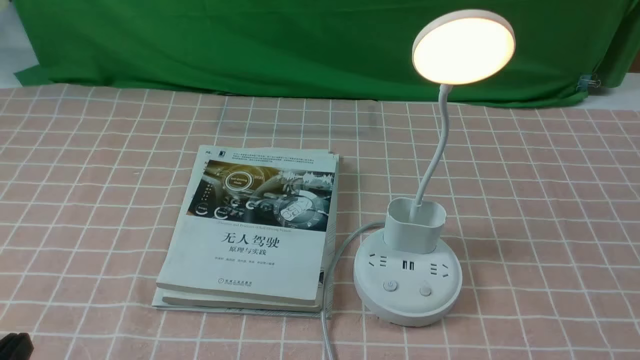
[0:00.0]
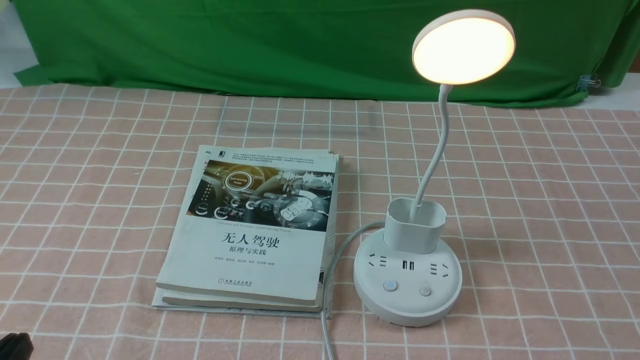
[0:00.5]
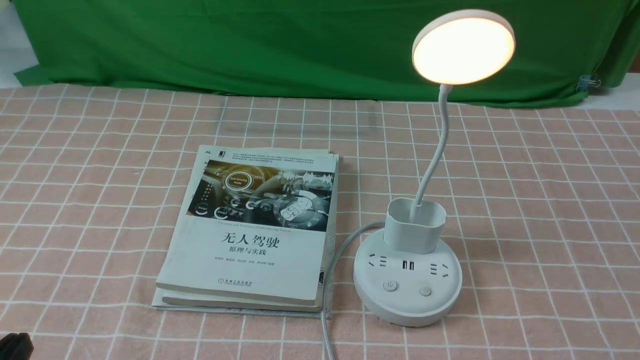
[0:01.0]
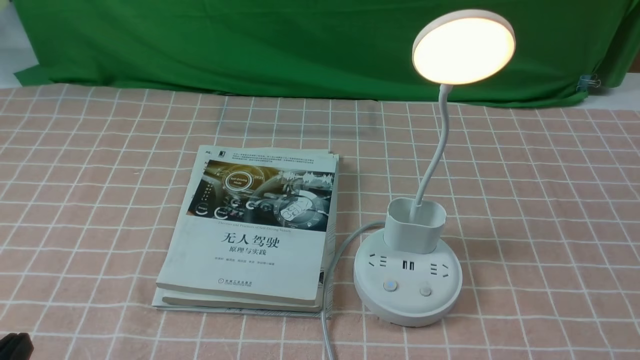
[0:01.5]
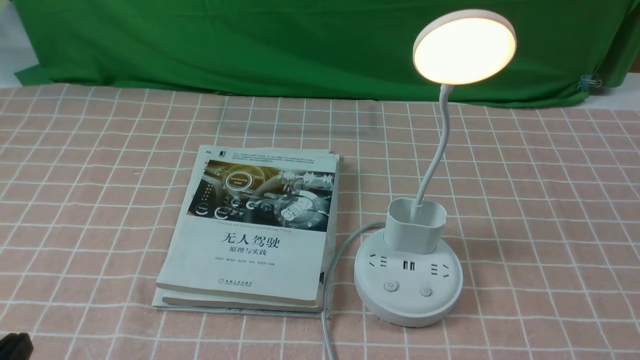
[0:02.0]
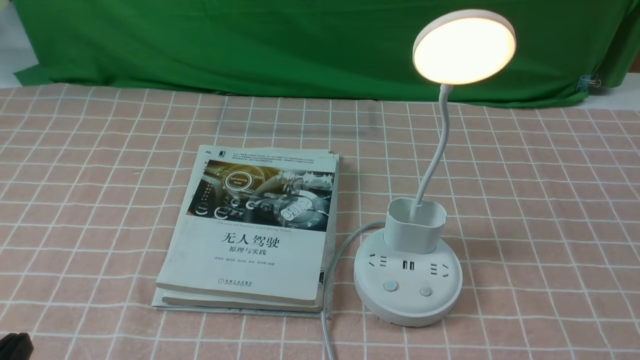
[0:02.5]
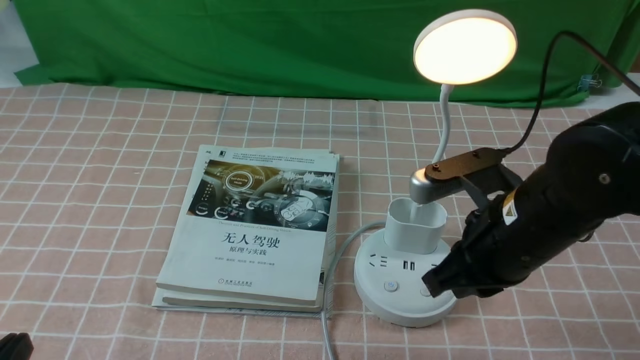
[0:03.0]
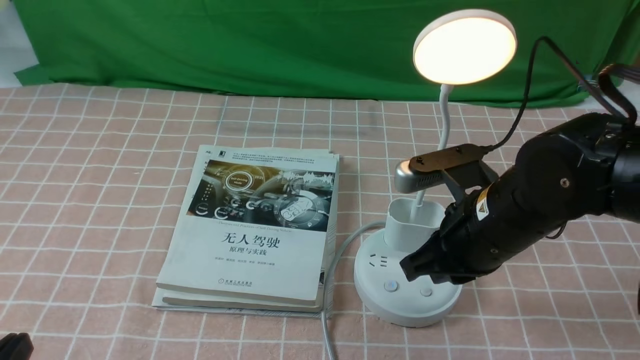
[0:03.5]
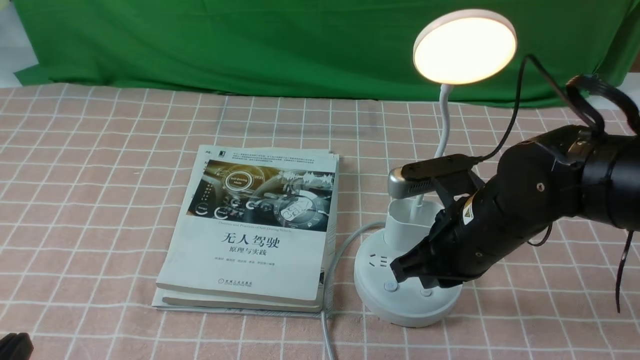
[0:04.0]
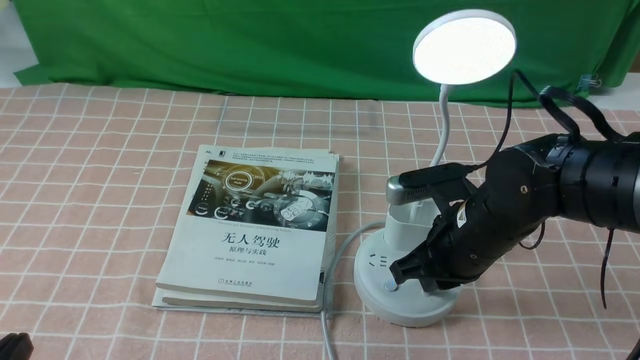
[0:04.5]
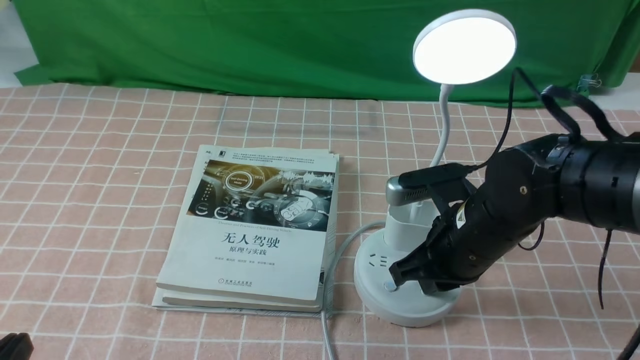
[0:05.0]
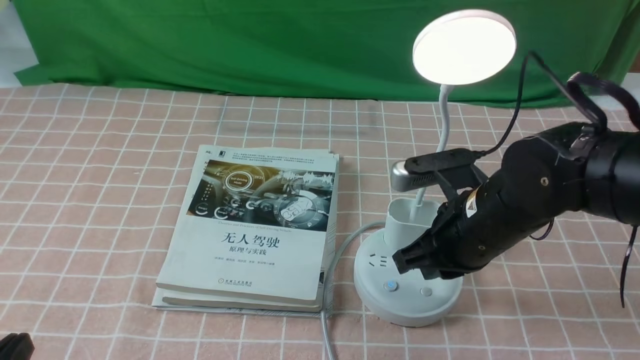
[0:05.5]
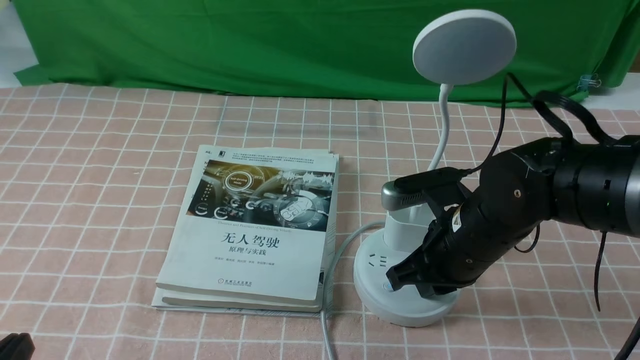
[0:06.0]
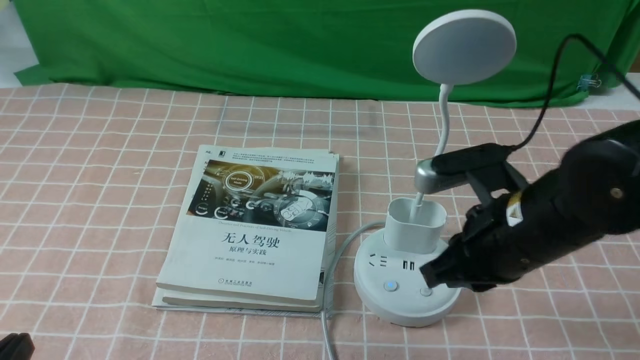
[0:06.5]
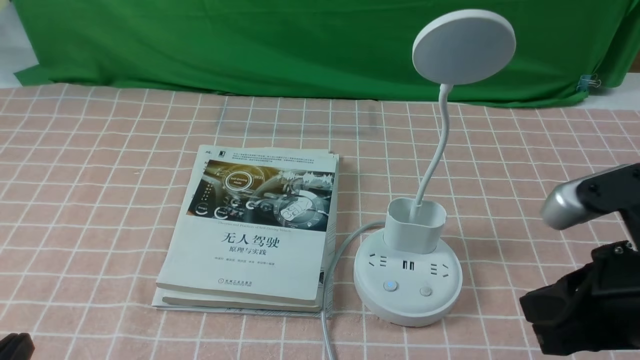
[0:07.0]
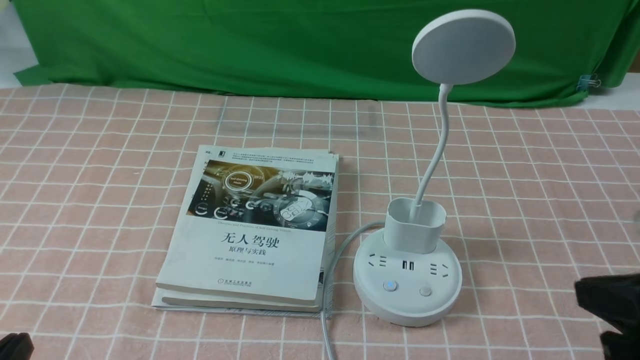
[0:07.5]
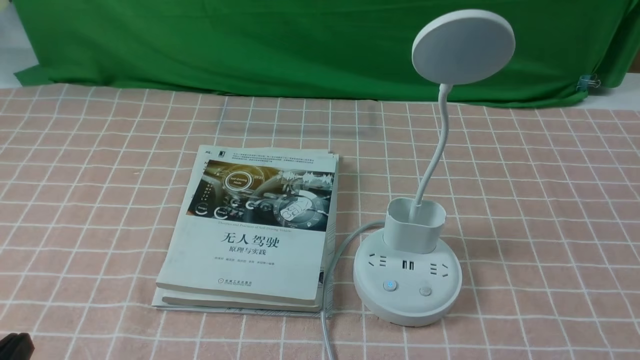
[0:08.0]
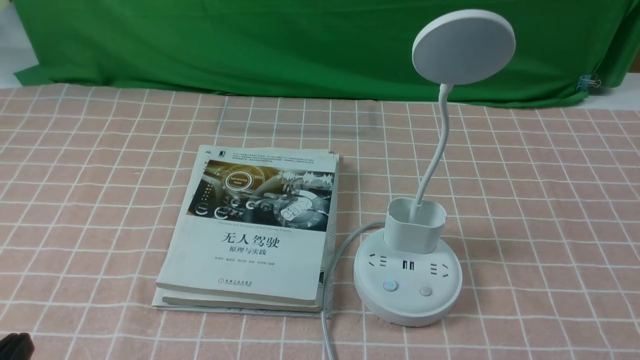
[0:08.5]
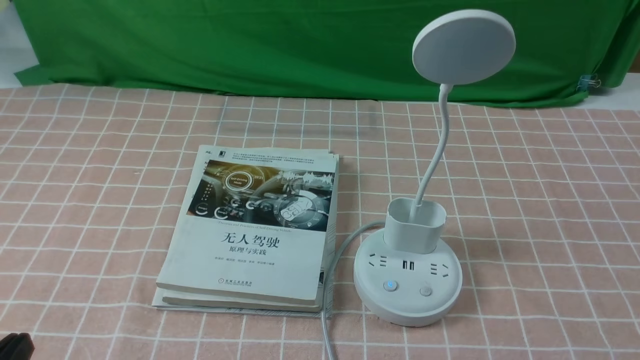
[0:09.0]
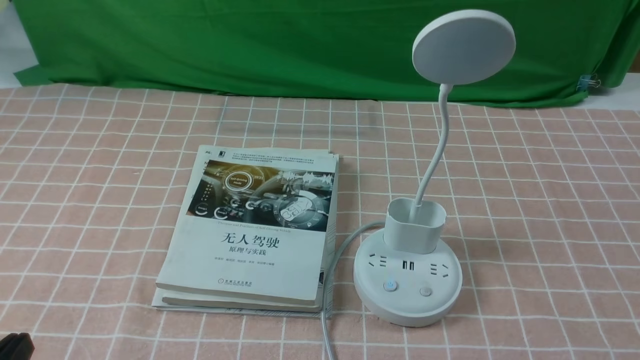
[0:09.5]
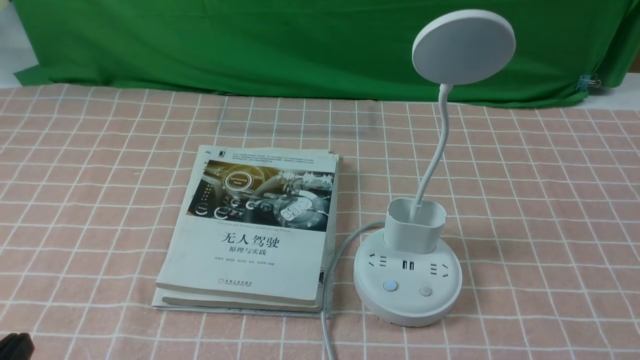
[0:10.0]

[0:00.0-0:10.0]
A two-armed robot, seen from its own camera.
Task of the whole recording: turn off the table lamp on the pink coffee tablecloth by hand.
Step, 0:00.0 to 0:06.0: use the right arm to press the button switch on the lamp holder.
0:02.0 to 0:04.0: The right gripper is displaced forward and to the left by some 30 cm, and closes up.
0:04.0 to 0:06.0: There are only small adjustments of the grippers.
0:06.0 to 0:08.0: The right gripper goes roughly 30 cm backward and to the right.

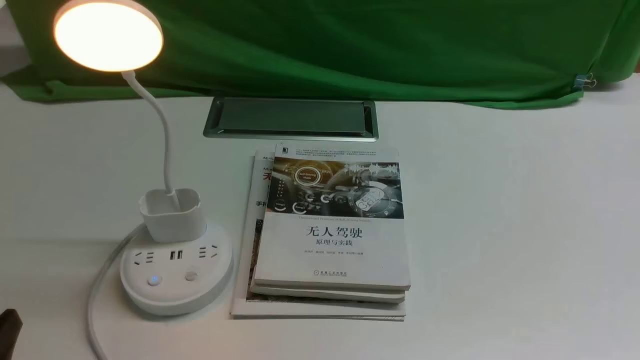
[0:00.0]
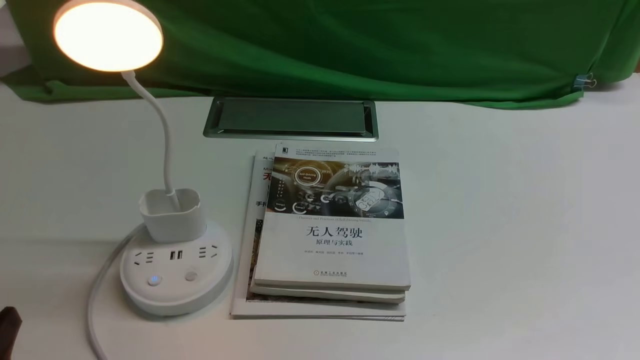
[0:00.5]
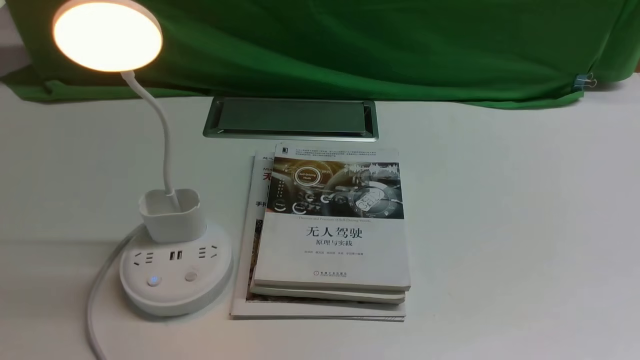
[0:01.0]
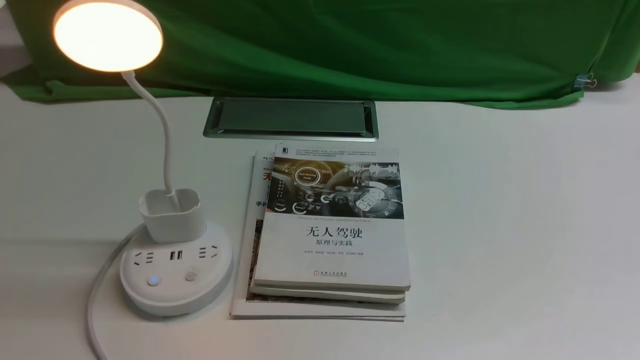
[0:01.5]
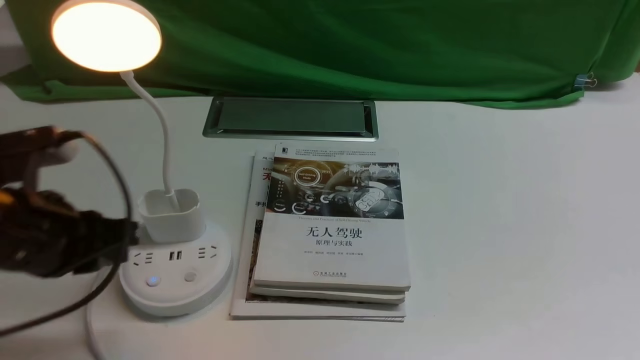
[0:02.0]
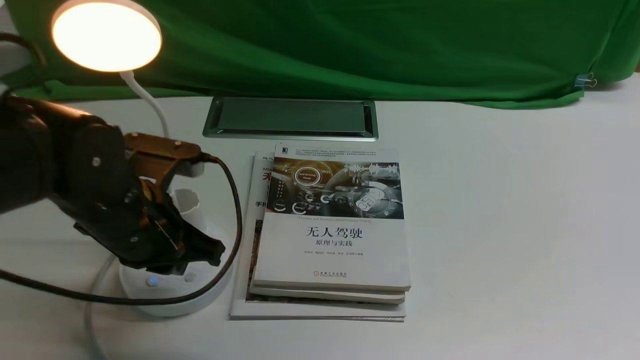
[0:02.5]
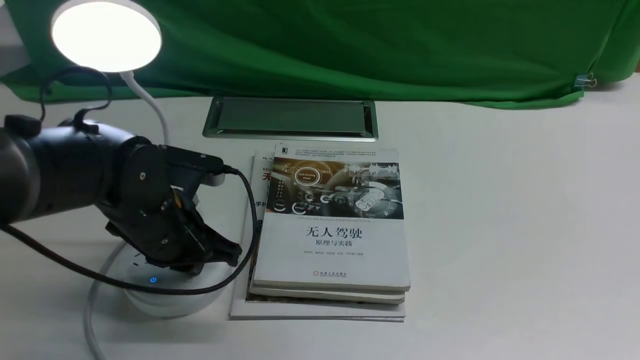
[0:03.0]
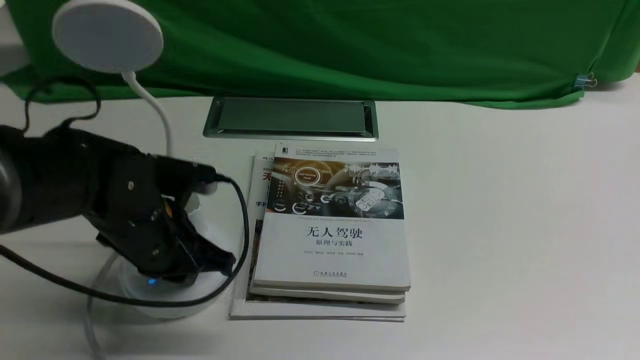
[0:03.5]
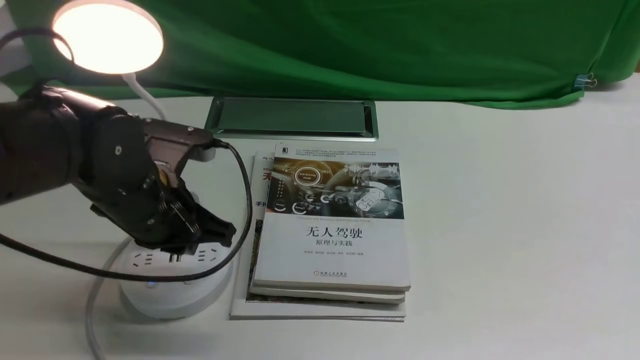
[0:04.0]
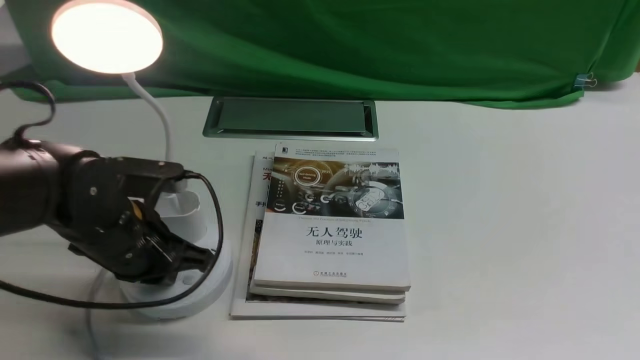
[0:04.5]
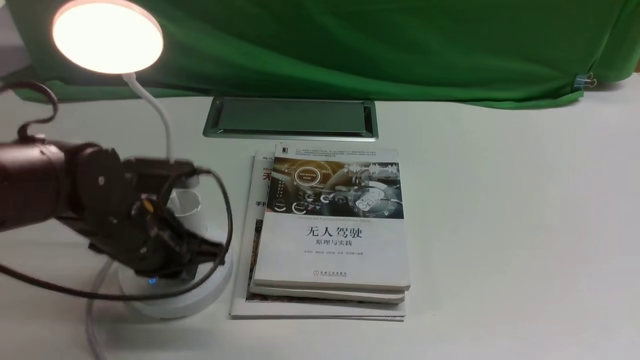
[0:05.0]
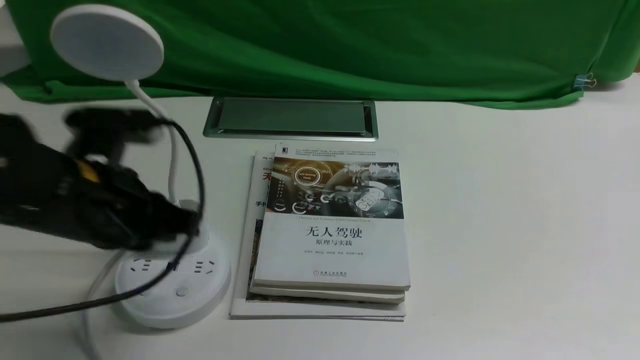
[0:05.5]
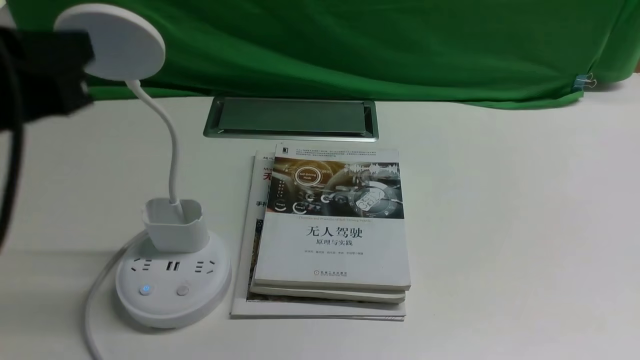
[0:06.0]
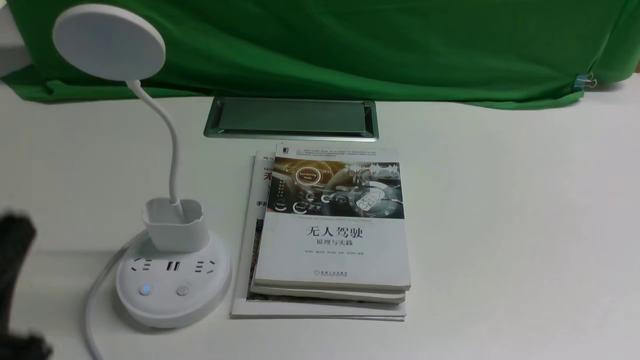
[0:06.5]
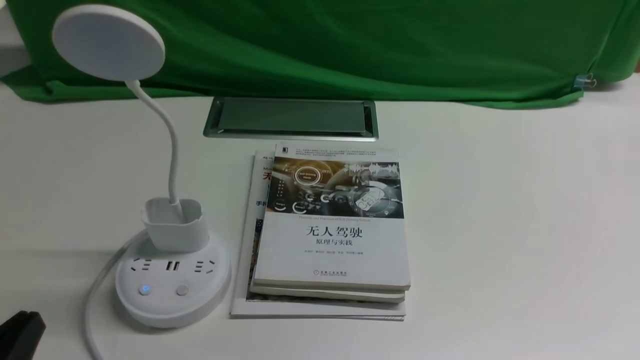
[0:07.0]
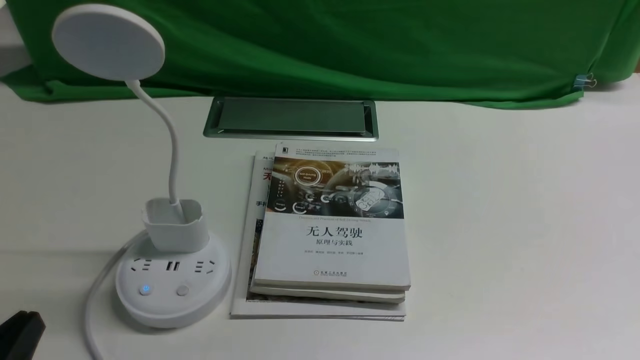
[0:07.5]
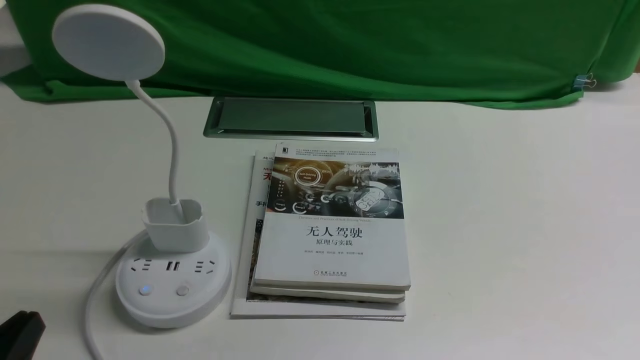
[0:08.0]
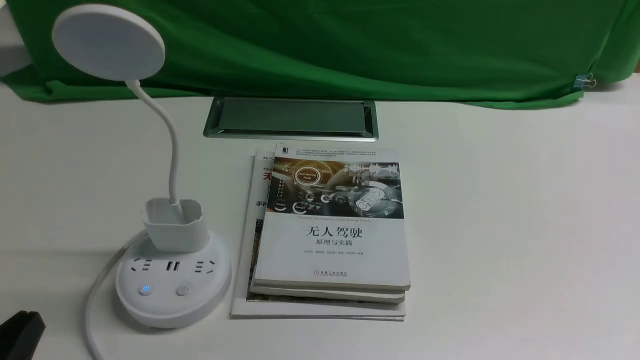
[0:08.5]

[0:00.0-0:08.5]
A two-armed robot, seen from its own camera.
Task of the whole recording: turn off the desk lamp on the white desktop by hand.
Step, 0:00.0 to 0:05.0: use the left arm to press the button switch on the lamp holder.
0:02.0 to 0:04.0: The left gripper is displaced forward, to the right and downward by approximately 15 cm, and closes.
0:04.0 to 0:06.5: The left gripper is displaced backward, upward and to the left by roughly 25 cm.
0:06.5 to 0:08.5: The left gripper travels downward by some 10 cm.
